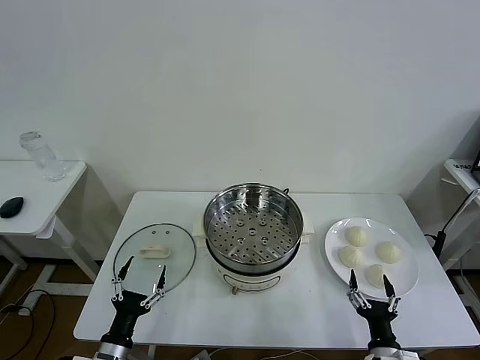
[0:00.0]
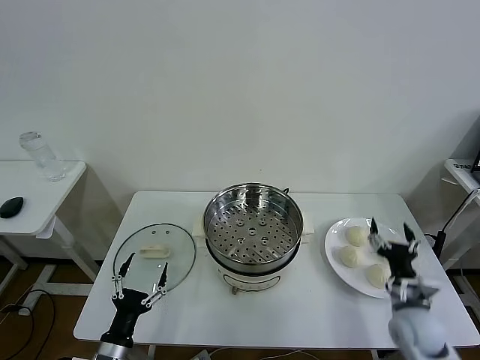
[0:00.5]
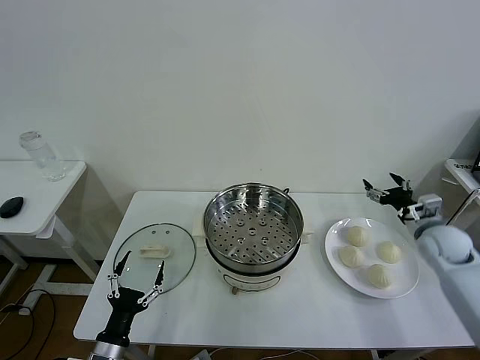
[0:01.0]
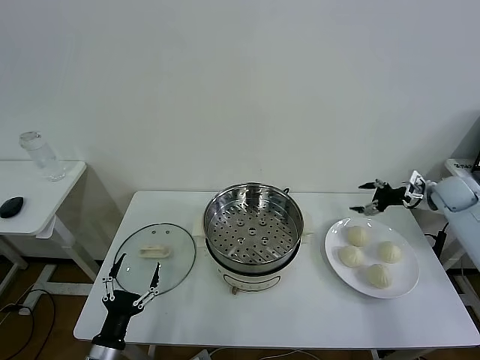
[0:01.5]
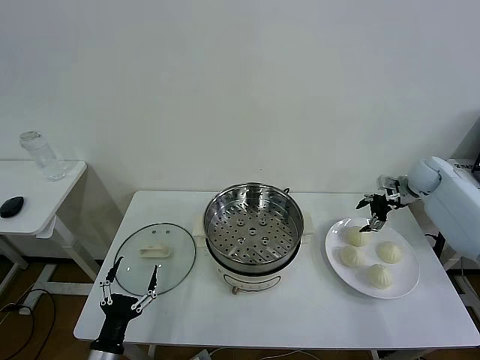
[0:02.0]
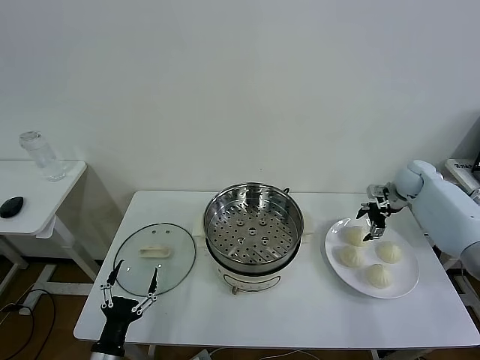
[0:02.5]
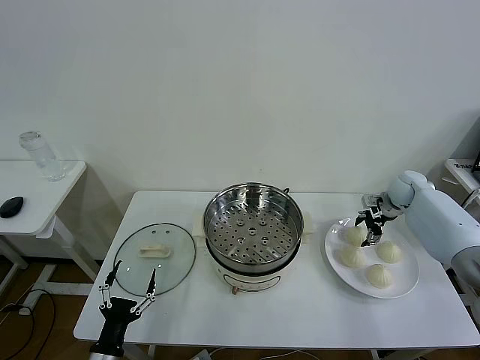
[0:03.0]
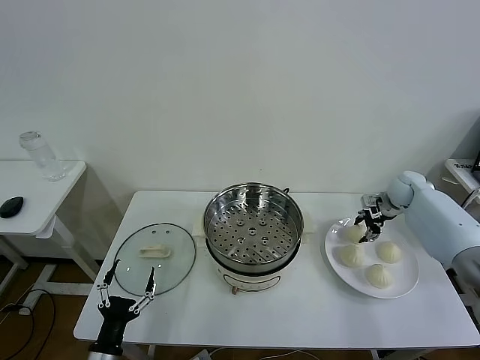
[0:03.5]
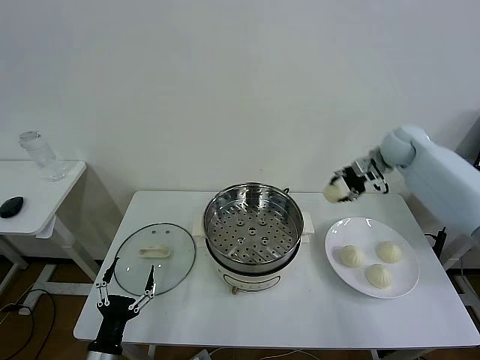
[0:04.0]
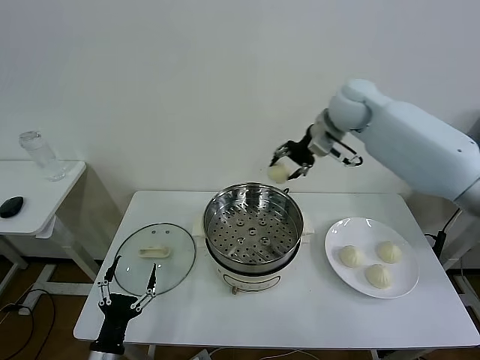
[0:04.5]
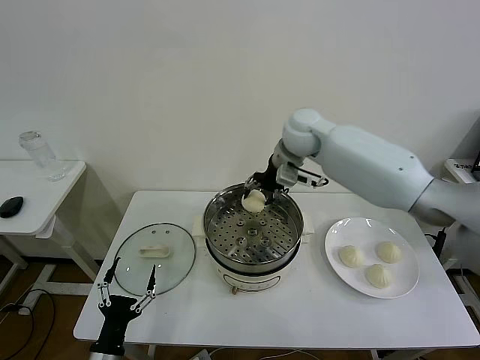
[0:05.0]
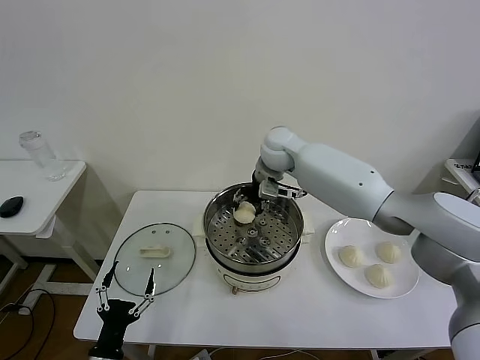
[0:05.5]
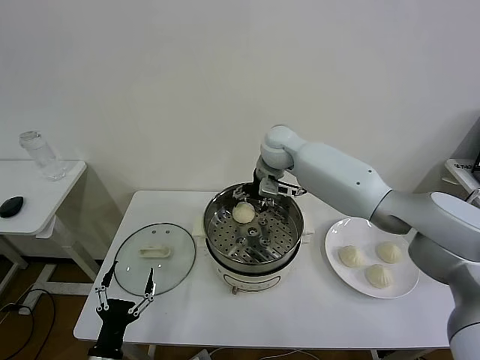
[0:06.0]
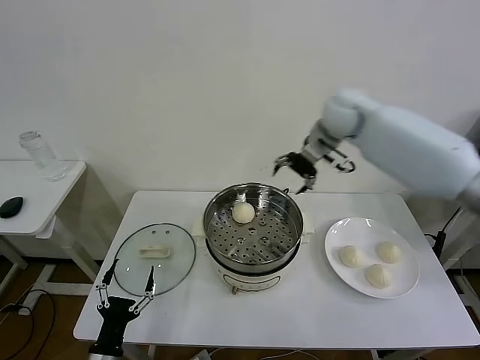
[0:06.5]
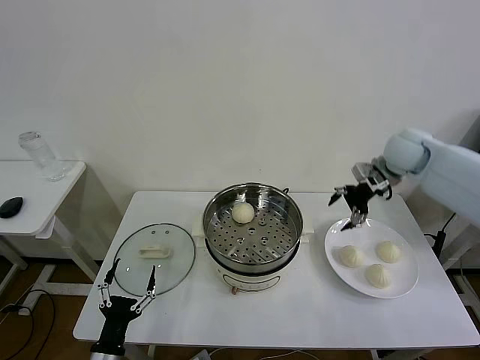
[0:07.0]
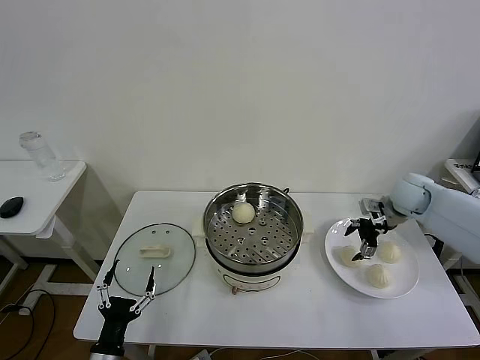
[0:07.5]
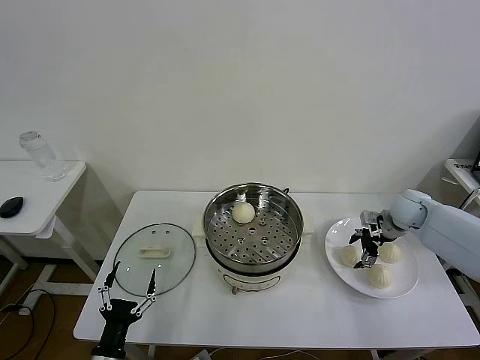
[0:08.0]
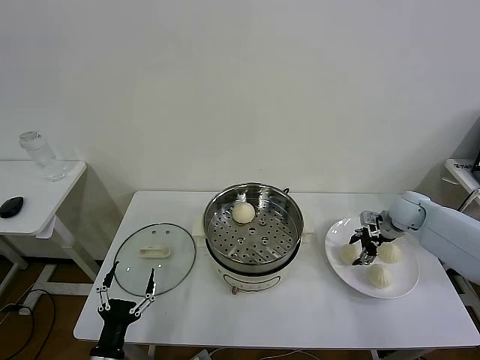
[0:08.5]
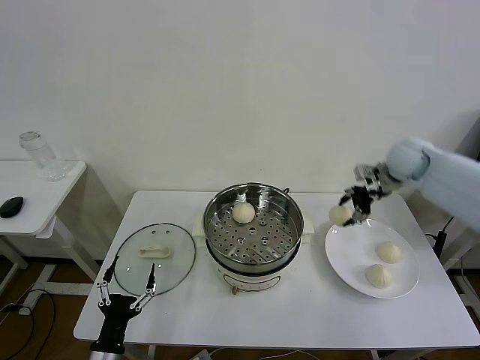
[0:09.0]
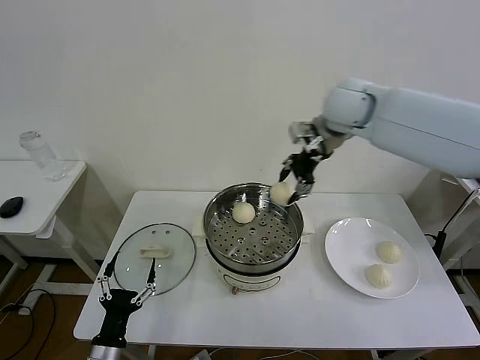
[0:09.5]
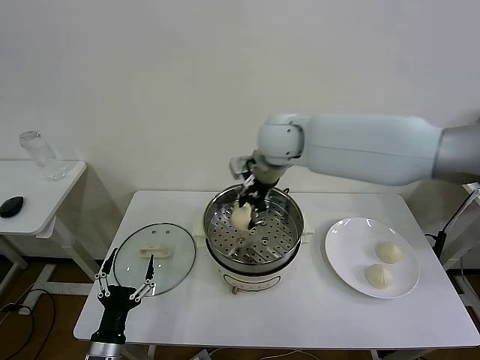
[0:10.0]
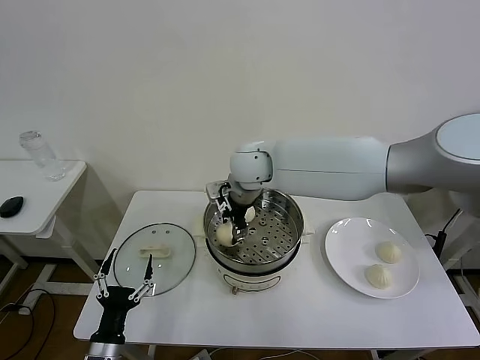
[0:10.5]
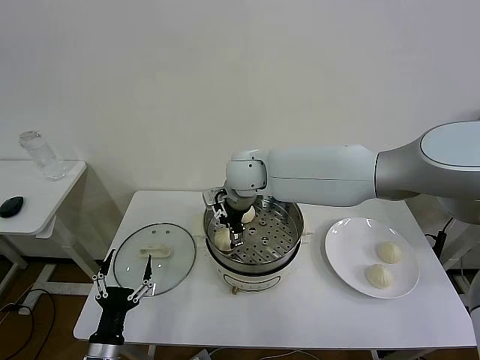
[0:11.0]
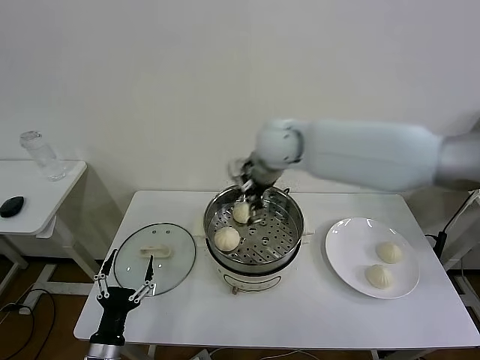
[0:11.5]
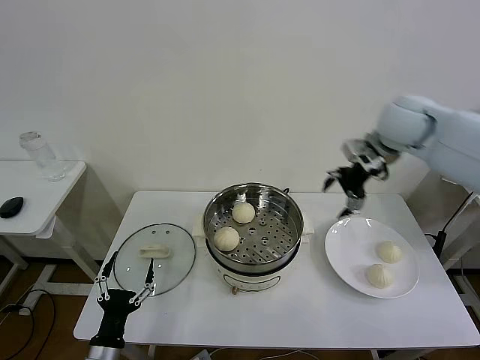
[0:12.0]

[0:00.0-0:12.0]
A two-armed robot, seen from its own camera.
Task of the whole recording: take steamed baozi put them in steamer then cover it.
Step, 0:00.0 to 0:03.5: Grasp the baozi in the plate with right gripper.
Step, 0:04.0 to 0:06.0: Place the baozi on the steamer with right gripper.
Step, 0:06.5 to 0:08.5: Grasp the baozi in the plate with right gripper.
Step, 0:09.0 to 0:11.5: Place the baozi on the steamer with right gripper.
0:02.0 to 0:04.0: The right gripper shifts some 15 cm to the left and upward, and closes up.
0:04.0 to 0:06.0: The right gripper moves to the left, approximately 30 cm, and opens its fingers.
0:06.0 to 0:08.0: The right gripper is displaced to the right and downward by roughly 35 cm.
0:08.0 to 0:10.0: The right gripper goes about 40 cm to the left and upward, and closes up.
0:10.0 to 0:12.0: The right gripper travels to the right by about 25 cm, and opens its fingers.

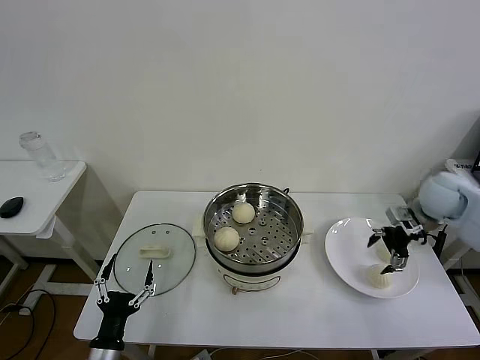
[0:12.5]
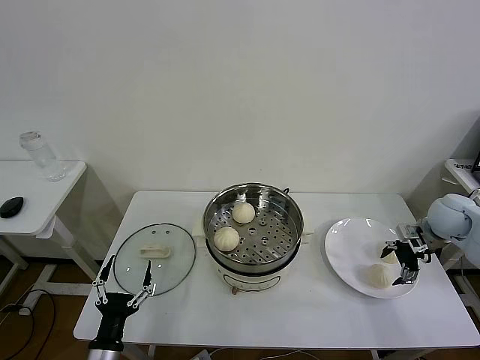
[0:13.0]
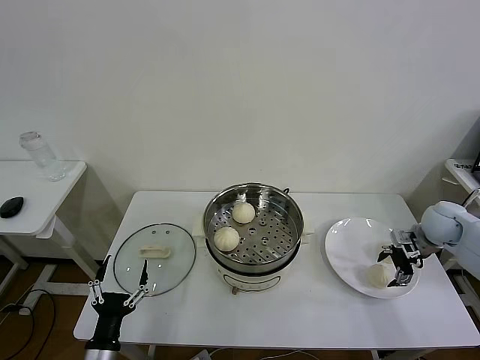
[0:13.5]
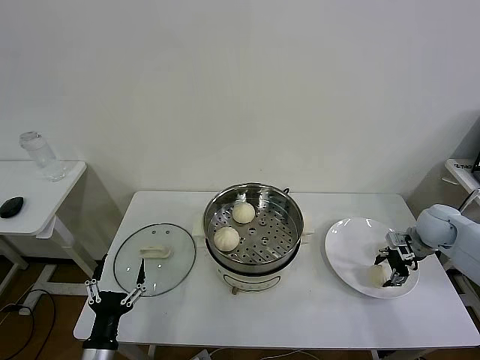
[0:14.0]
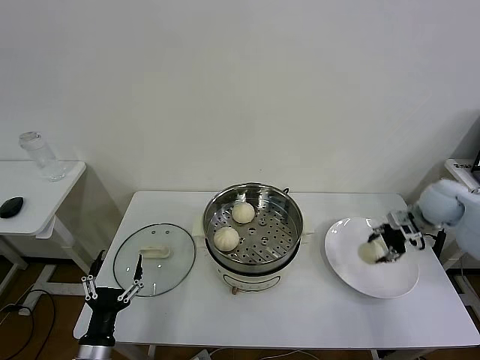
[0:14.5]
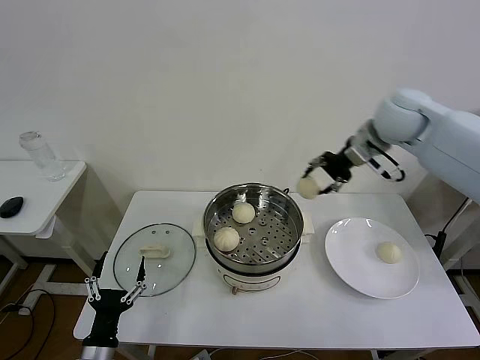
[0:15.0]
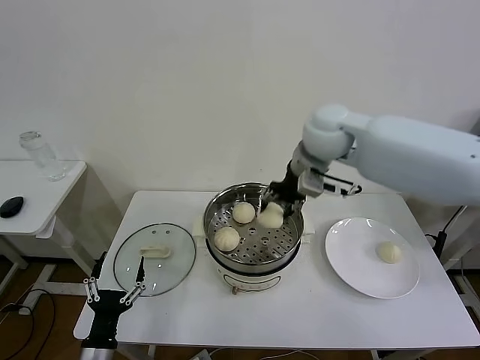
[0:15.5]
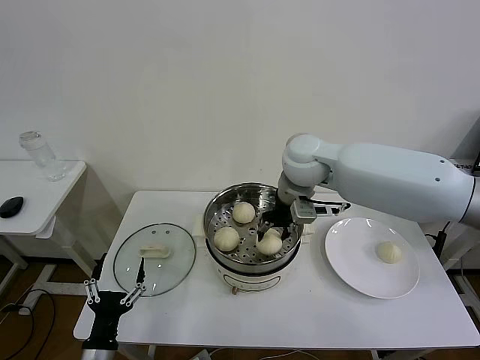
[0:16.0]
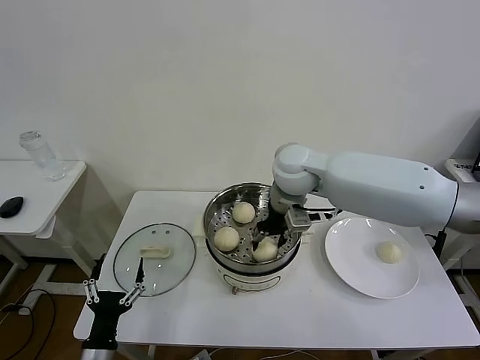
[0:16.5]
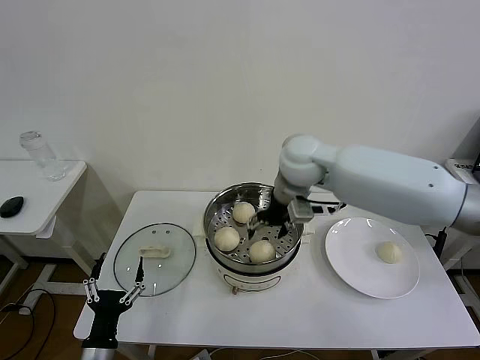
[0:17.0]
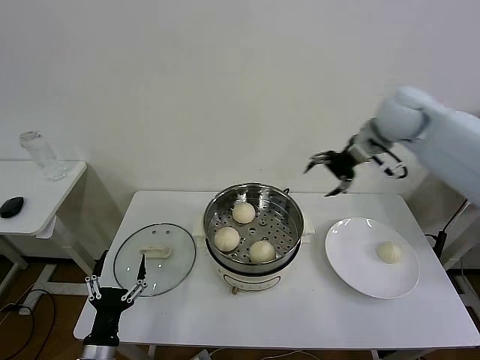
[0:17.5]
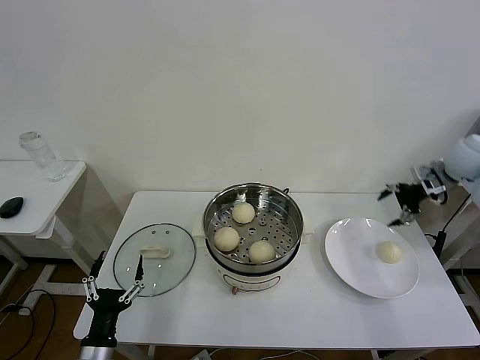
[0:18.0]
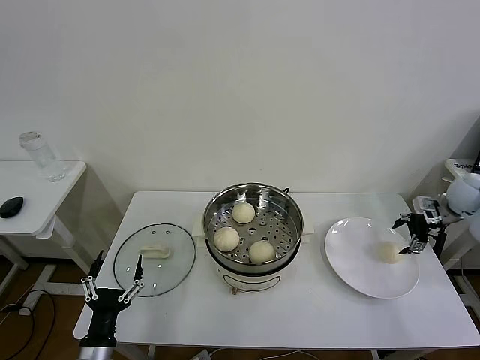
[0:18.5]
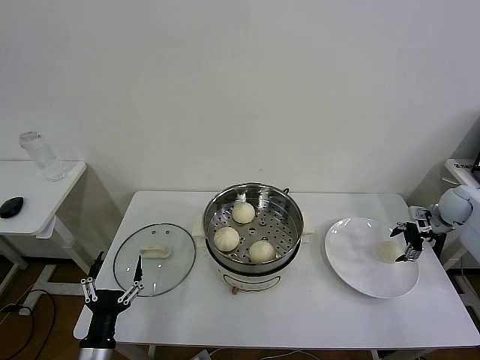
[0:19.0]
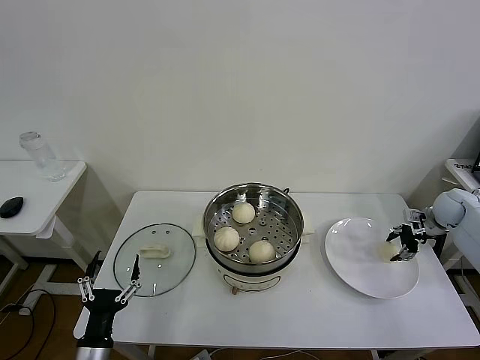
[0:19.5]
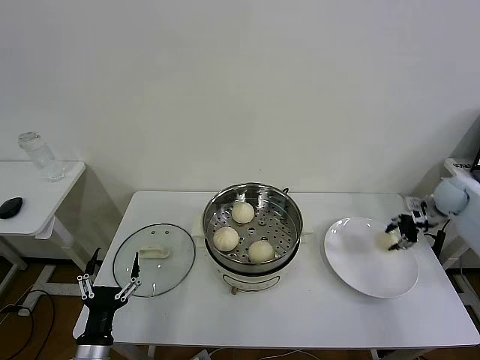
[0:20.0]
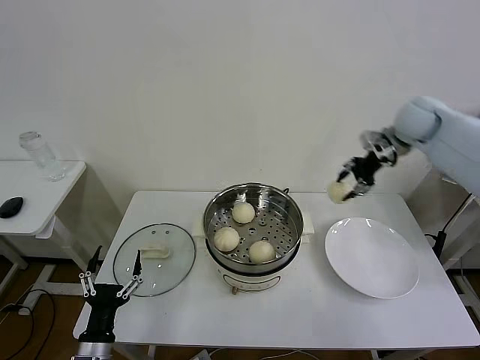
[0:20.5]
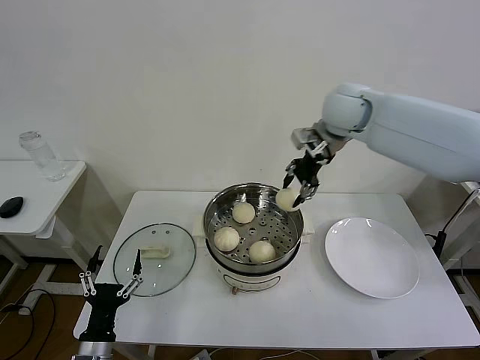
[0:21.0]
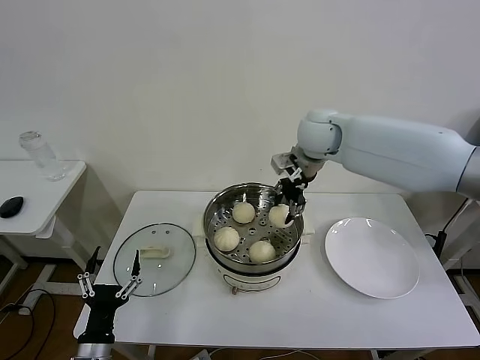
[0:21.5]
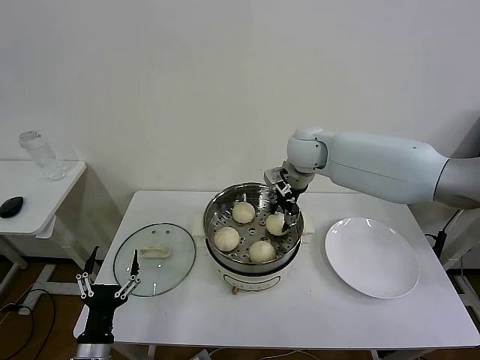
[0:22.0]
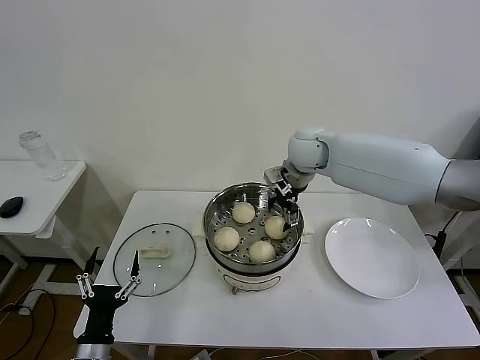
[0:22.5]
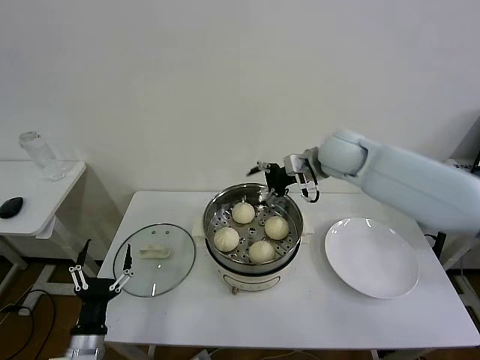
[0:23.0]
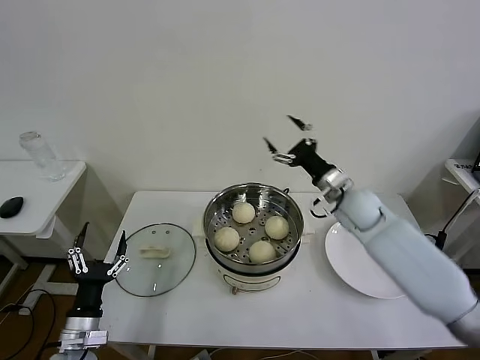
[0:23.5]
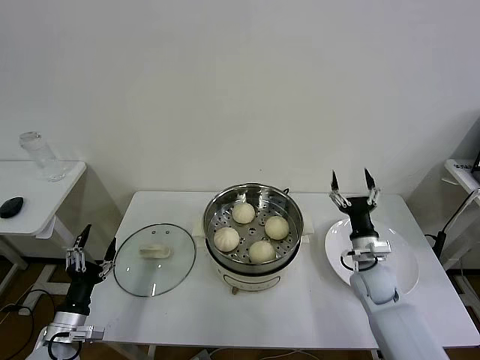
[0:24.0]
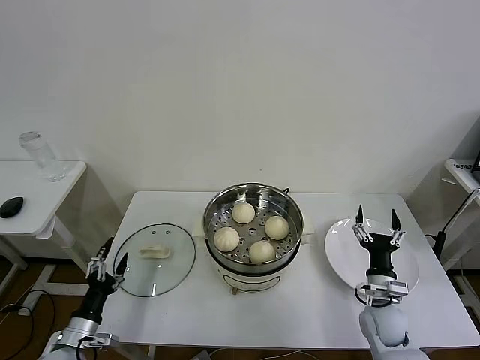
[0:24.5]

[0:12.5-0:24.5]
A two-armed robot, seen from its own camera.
Task of the whole recording: take steamed baozi put them in steamer then cover it.
Step, 0:12.5 to 0:14.0: Grasp the baozi in the plate with right gripper.
Step, 0:14.5 to 0:17.0: Place the baozi on the steamer with right gripper.
Step, 0:17.5 to 0:19.5: Grasp the baozi in the plate with right gripper.
Step, 0:20.5 to 0:22.5: Place the baozi on the steamer with right gripper.
0:12.5 to 0:14.5: The right gripper travels downward and back again, roughly 10 cm each way, and closes up.
0:14.5 to 0:16.5: The right gripper goes roughly 35 cm to the left, and opens.
0:16.5 to 0:18.5: The right gripper is displaced to the right by roughly 40 cm, and opens up.
0:18.5 to 0:20.5: The right gripper travels to the left, upward and forward by roughly 25 cm, and closes.
0:20.5 to 0:22.5: The right gripper shifts approximately 25 cm to the left, and opens.
0:22.5 to 0:24.5: The right gripper shifts about 40 cm downward, backward and to the right; the left gripper goes some 10 cm to the left and forward.

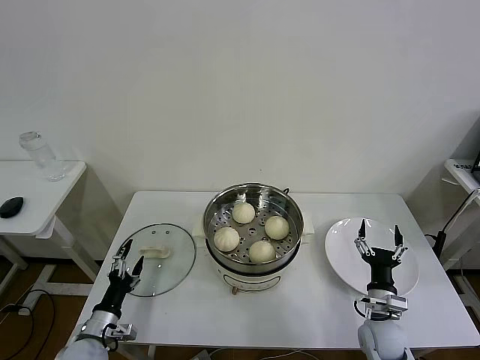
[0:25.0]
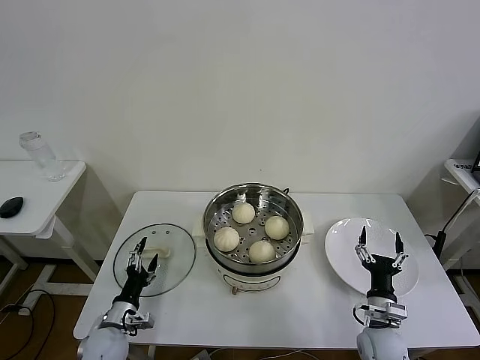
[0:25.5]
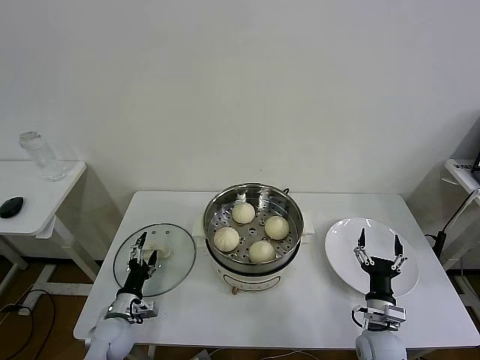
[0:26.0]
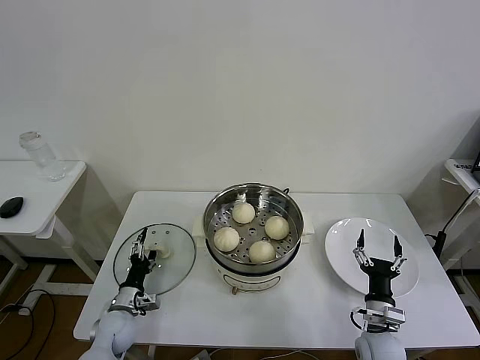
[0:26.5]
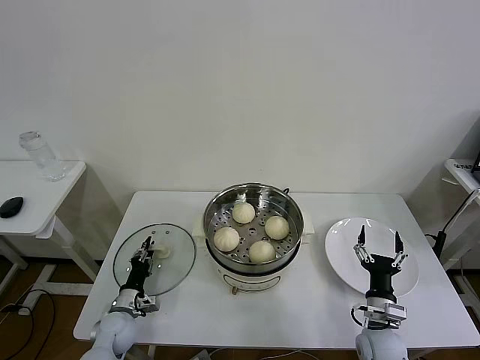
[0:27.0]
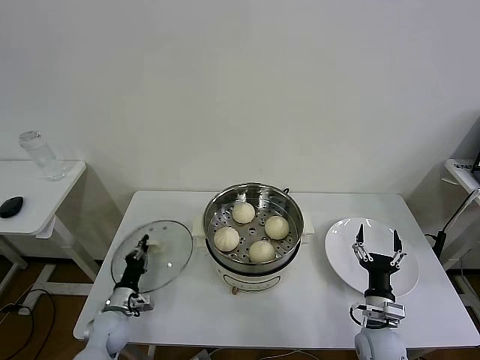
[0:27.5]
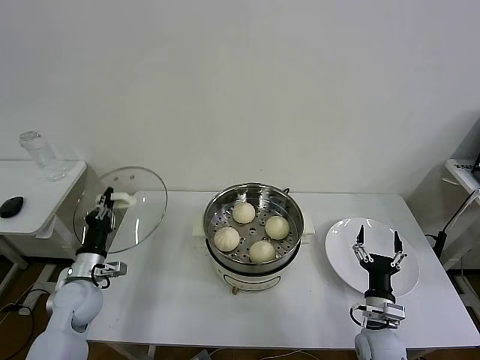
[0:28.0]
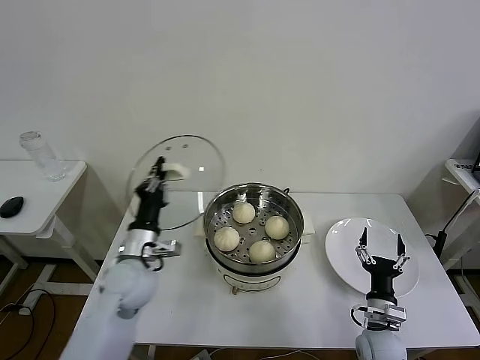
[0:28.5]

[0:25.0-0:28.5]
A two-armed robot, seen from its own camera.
Task of the whole recording: take steamed baozi put them in steamer then cover it.
Step, 0:25.0 to 0:27.0: Grasp the pot lid with left gripper.
0:25.0 to 0:27.0: The left gripper is displaced forward and downward by some 10 cm, and closes its fingers.
0:27.0 to 0:28.5: The left gripper travels upward by some 20 cm.
